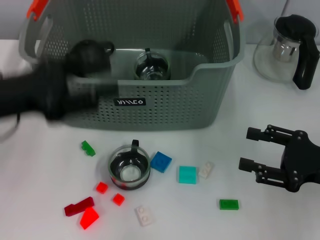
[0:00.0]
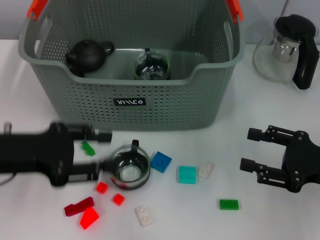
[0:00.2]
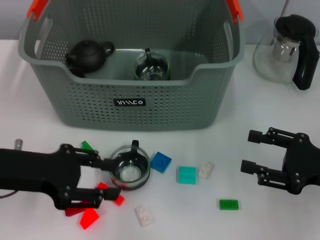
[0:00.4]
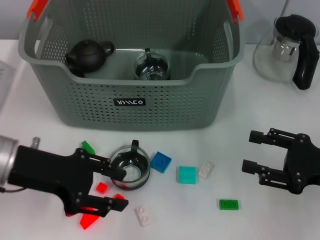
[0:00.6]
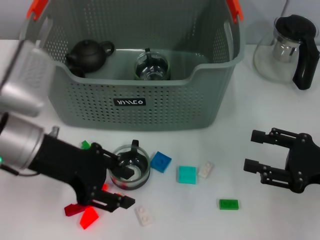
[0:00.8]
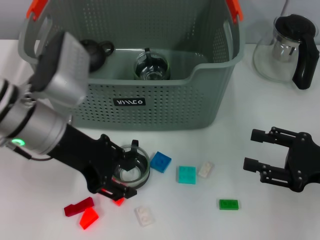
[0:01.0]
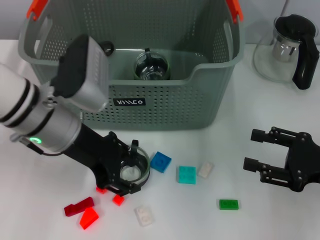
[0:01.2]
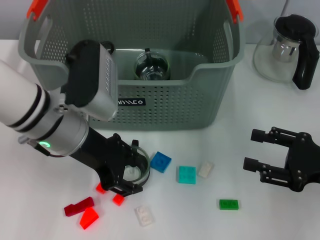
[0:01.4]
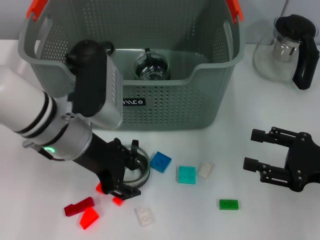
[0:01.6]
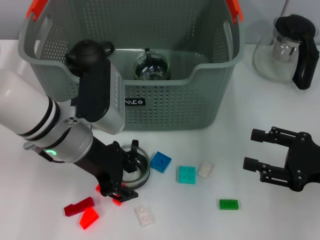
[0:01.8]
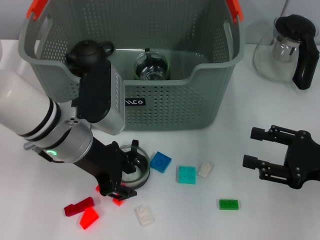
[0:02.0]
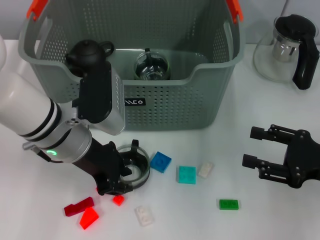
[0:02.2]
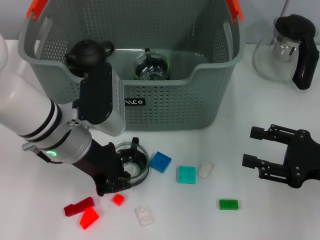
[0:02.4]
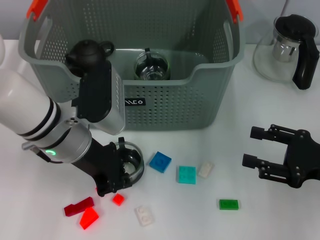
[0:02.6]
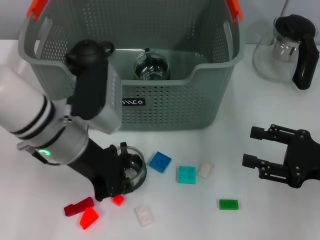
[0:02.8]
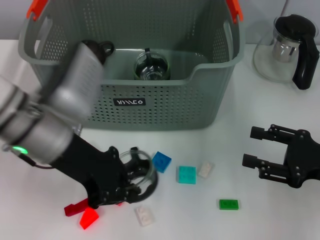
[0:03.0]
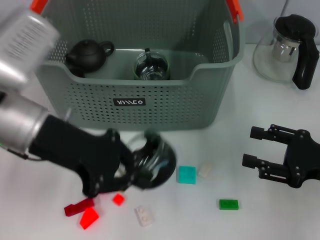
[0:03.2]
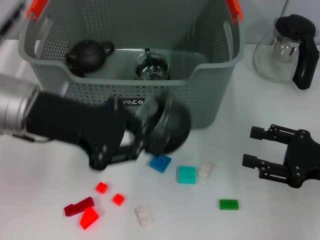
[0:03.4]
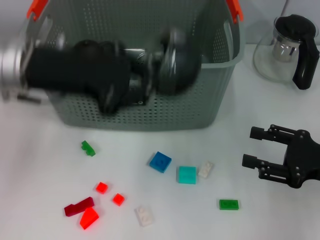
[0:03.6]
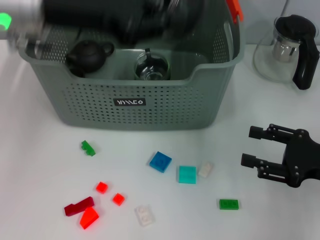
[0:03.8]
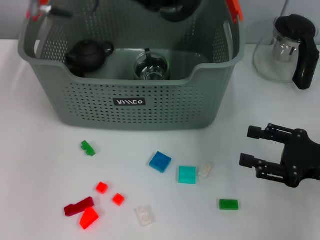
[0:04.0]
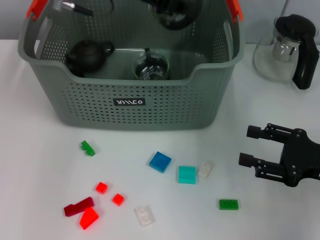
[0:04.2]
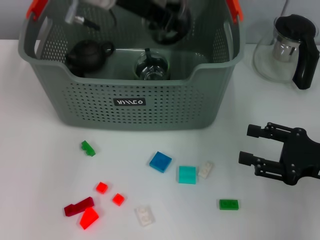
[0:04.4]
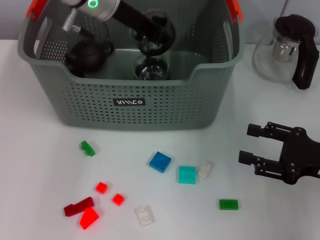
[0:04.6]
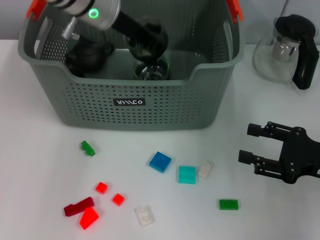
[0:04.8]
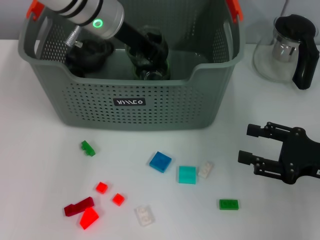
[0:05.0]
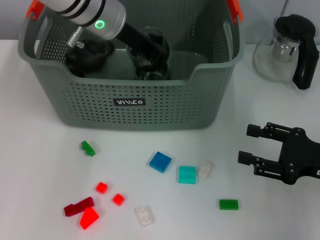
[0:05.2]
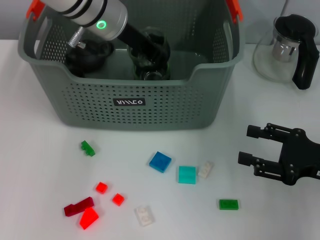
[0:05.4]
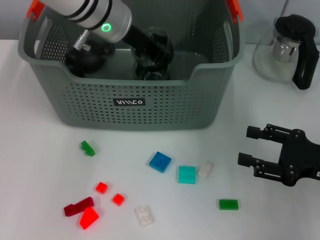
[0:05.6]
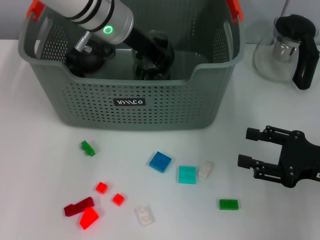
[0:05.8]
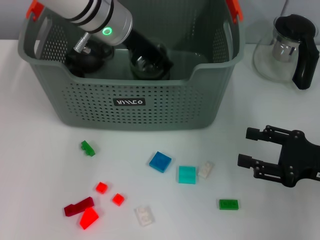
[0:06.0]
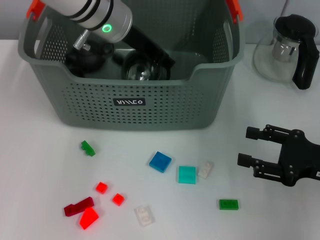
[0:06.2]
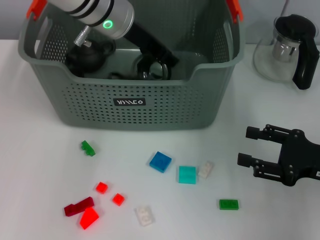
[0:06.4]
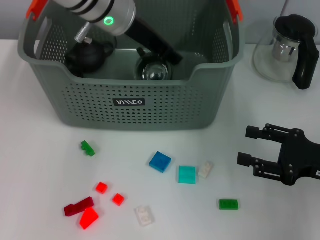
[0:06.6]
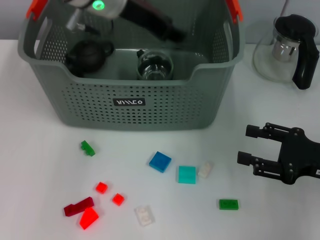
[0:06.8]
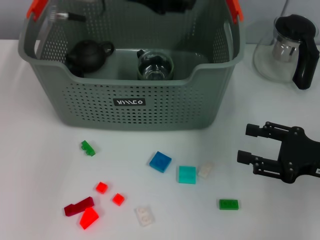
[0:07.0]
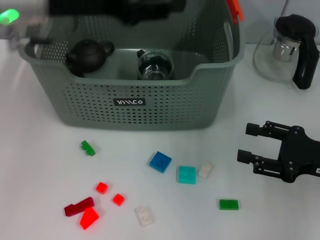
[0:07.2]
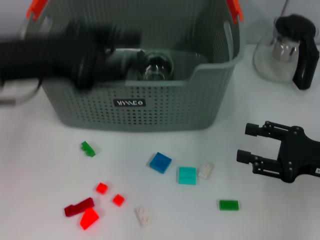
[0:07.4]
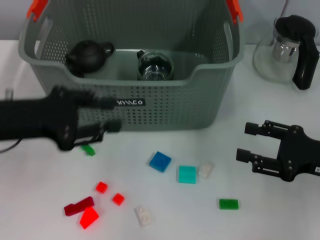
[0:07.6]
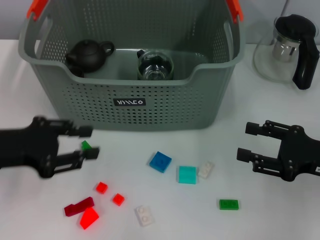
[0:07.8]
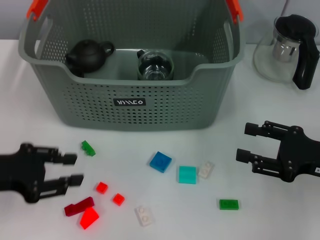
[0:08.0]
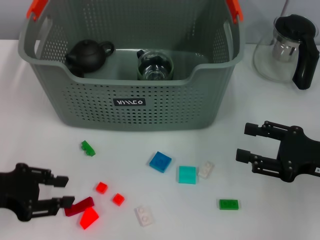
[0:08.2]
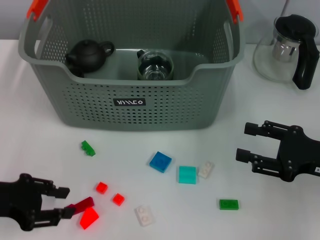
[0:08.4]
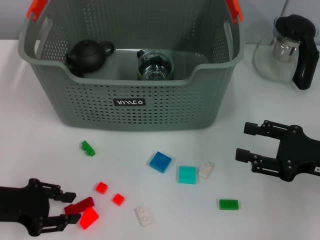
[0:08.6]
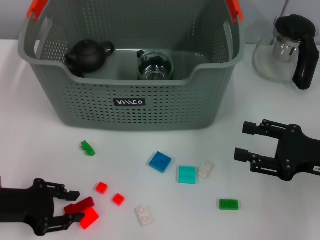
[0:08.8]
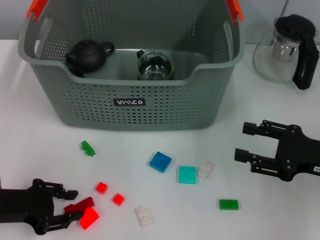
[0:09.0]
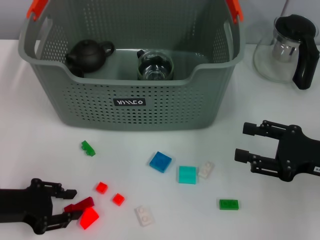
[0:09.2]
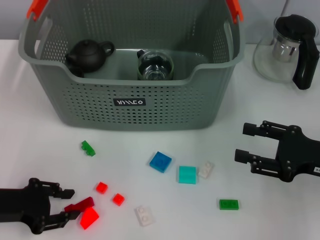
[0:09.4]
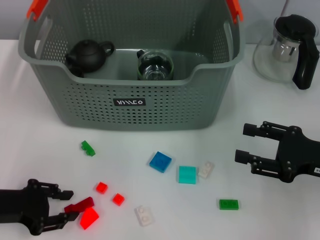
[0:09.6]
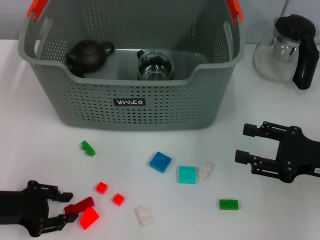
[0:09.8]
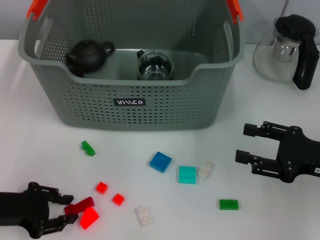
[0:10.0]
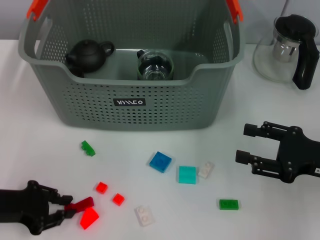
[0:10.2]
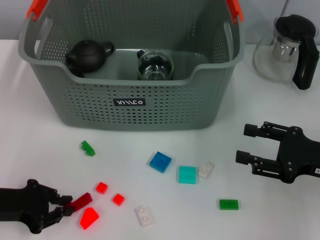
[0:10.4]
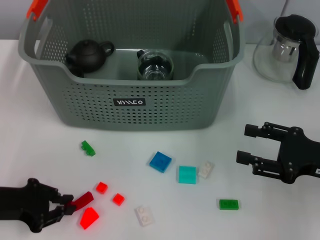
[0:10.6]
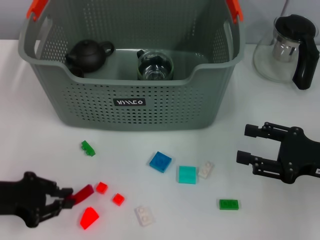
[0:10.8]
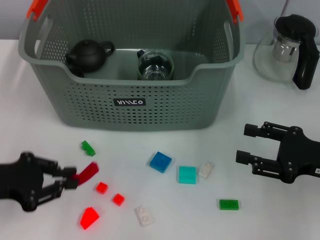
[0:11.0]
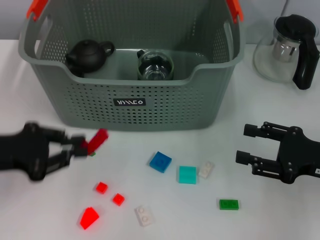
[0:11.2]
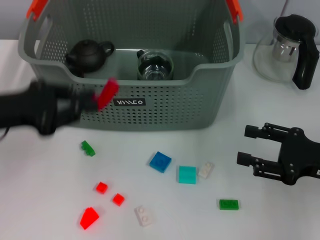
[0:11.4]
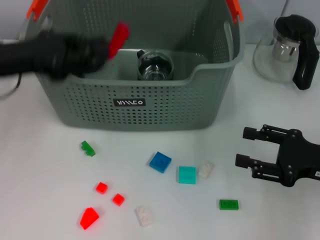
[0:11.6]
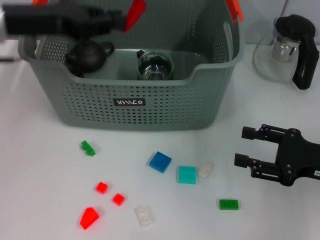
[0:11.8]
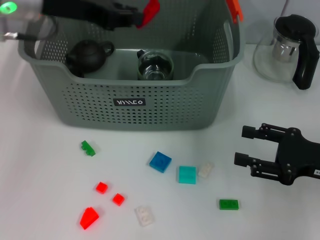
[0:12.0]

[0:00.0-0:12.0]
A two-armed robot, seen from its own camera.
Task of the whole recording: pick up the teacup on the table and place it into the storage bin, pick up the block on the table and place it into the storage bin.
Step, 0.0 to 2.4 s: Grasp the cup with left gripper.
Step, 2.8 to 6.6 s: Place the cup in the storage box with left gripper.
Step, 6.8 to 10.2 s: Grasp the red block with left gripper.
0.0 to 1.6 s: The left gripper goes some 10 cm to the right.
1.6 to 3.0 s: The left gripper closes its fingers.
3.0 to 4.4 s: The left gripper heads forward and upward, covering about 15 cm.
4.4 to 6.0 s: The left gripper ends up approximately 5 cm from where it was.
6.0 to 7.6 s: The left gripper goes some 25 cm backward and to the left, and opens its fingers.
7.6 to 9.0 s: The left gripper moves downward, about 10 cm.
9.0 to 10.4 s: Both grippers stay put.
10.4 to 12.0 s: The left gripper travels upward, forward and to the right by about 25 cm.

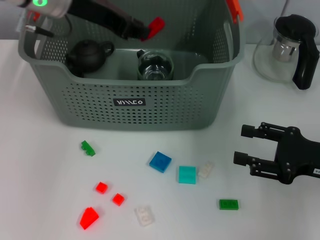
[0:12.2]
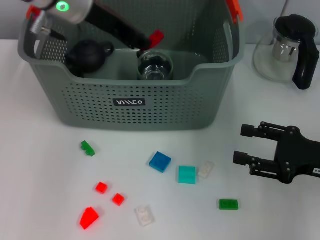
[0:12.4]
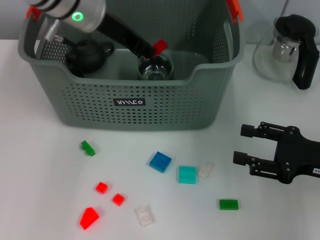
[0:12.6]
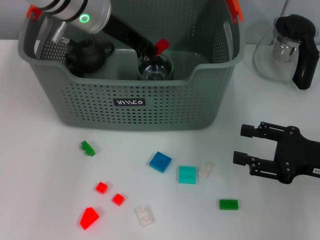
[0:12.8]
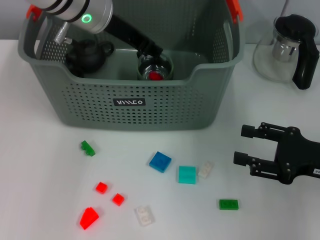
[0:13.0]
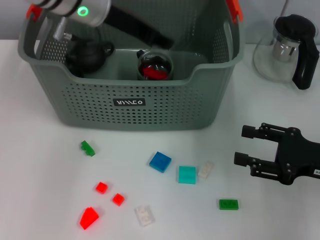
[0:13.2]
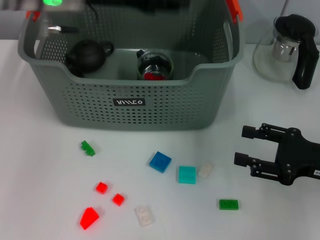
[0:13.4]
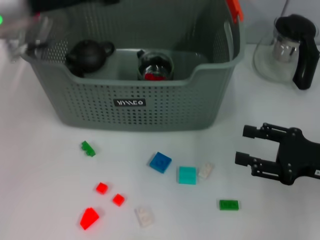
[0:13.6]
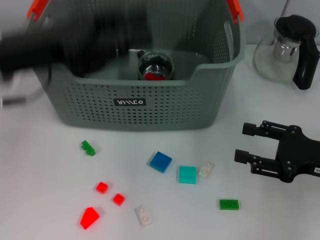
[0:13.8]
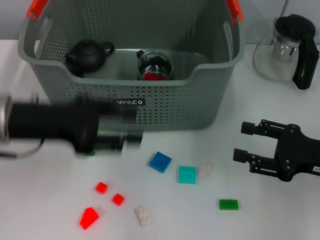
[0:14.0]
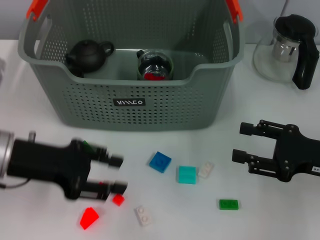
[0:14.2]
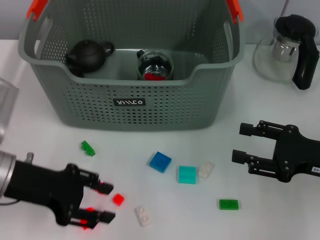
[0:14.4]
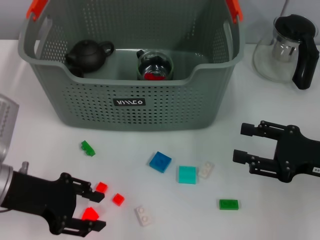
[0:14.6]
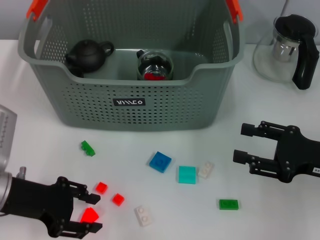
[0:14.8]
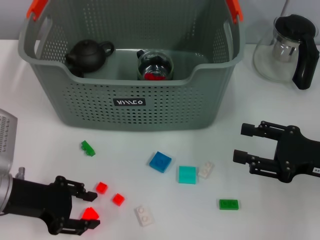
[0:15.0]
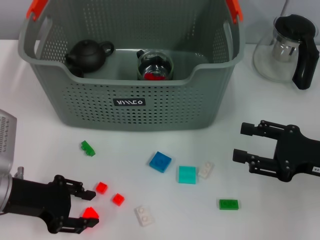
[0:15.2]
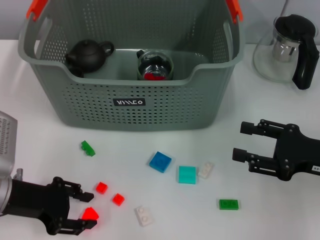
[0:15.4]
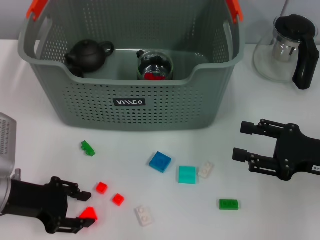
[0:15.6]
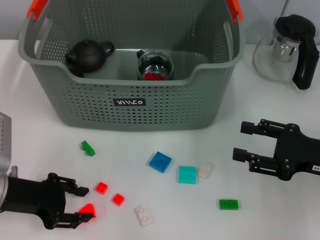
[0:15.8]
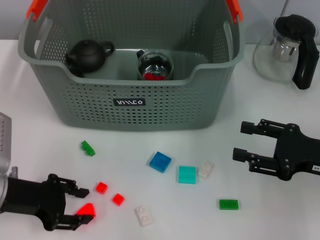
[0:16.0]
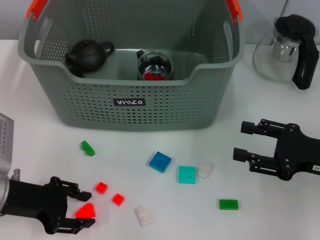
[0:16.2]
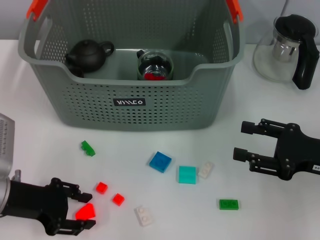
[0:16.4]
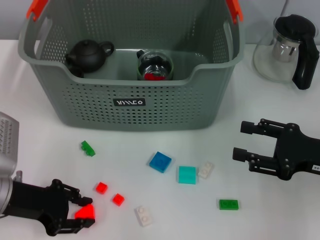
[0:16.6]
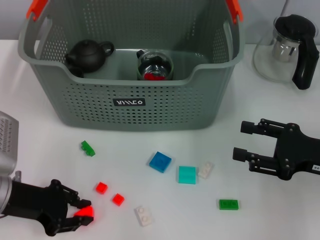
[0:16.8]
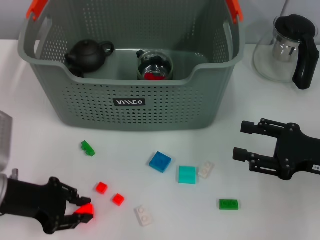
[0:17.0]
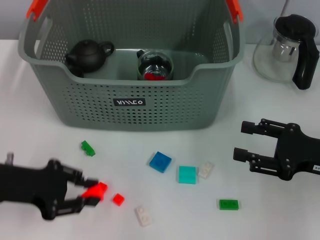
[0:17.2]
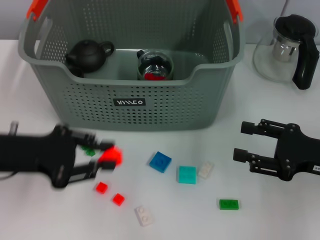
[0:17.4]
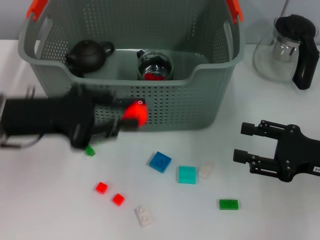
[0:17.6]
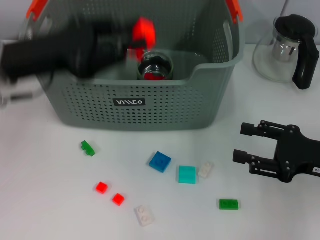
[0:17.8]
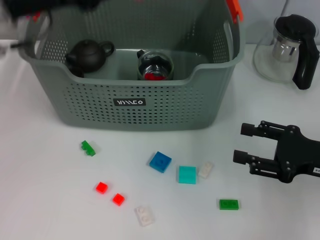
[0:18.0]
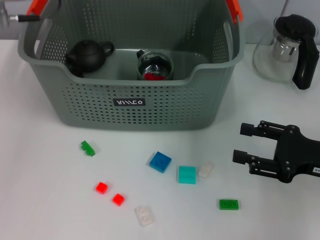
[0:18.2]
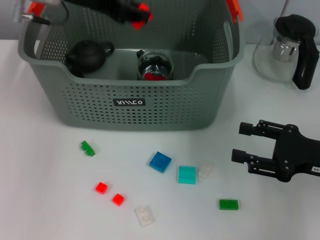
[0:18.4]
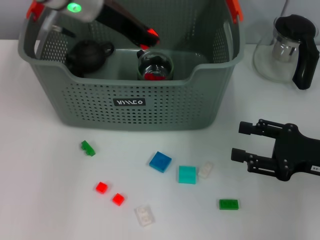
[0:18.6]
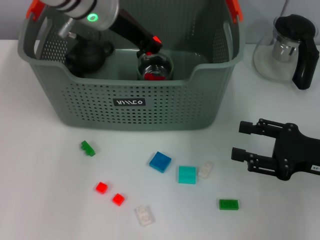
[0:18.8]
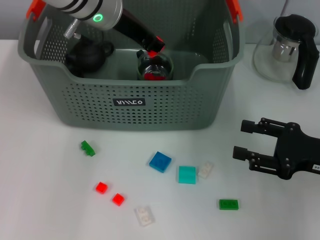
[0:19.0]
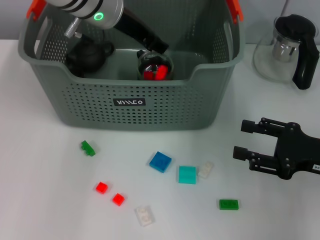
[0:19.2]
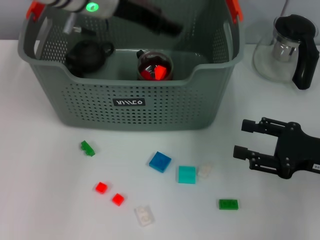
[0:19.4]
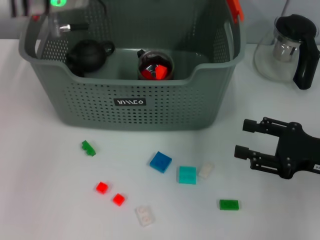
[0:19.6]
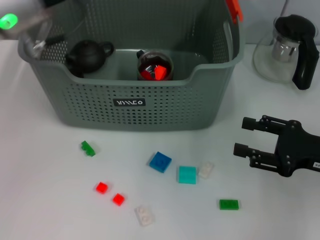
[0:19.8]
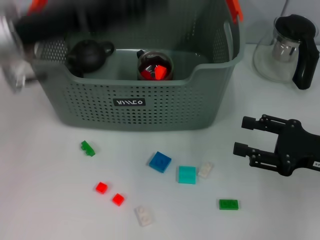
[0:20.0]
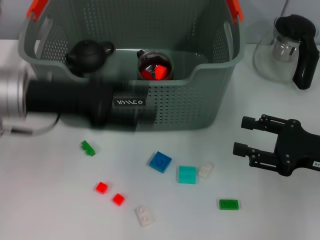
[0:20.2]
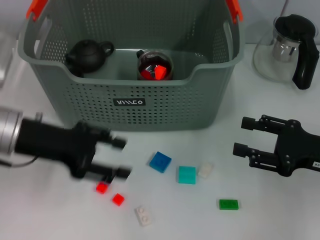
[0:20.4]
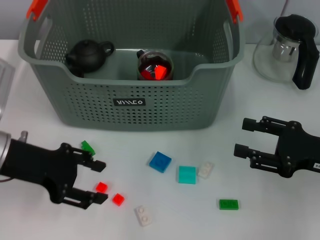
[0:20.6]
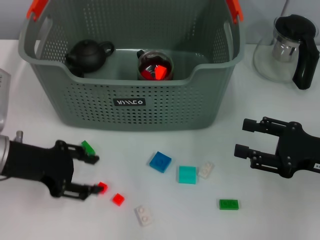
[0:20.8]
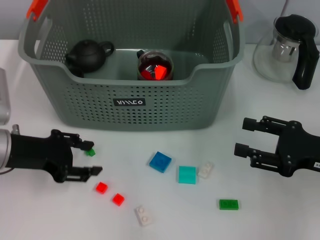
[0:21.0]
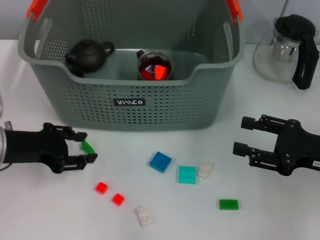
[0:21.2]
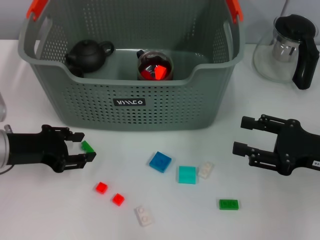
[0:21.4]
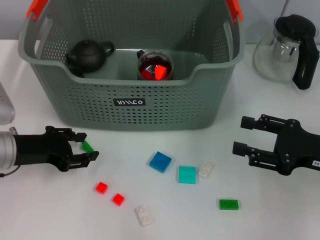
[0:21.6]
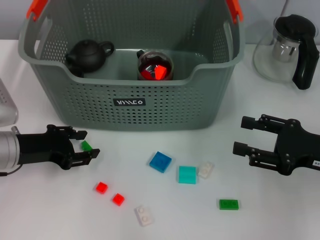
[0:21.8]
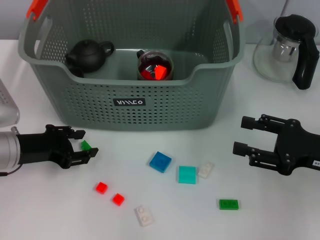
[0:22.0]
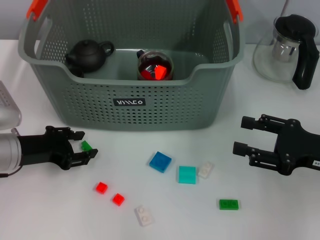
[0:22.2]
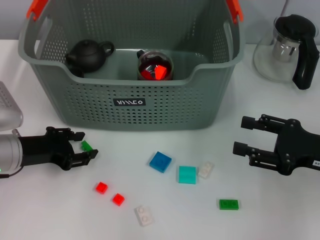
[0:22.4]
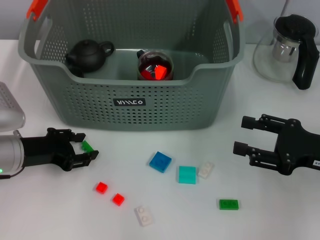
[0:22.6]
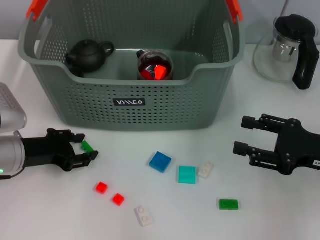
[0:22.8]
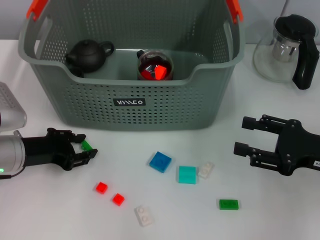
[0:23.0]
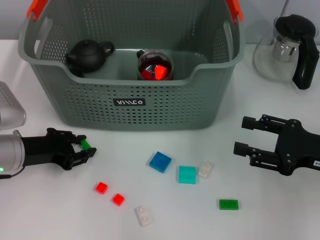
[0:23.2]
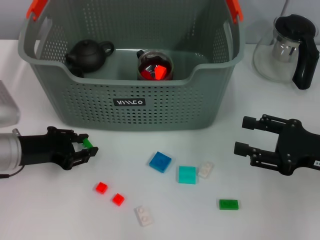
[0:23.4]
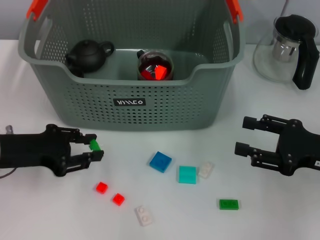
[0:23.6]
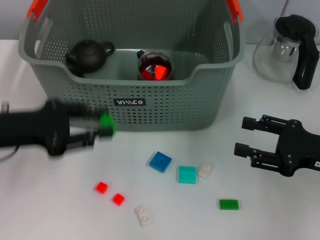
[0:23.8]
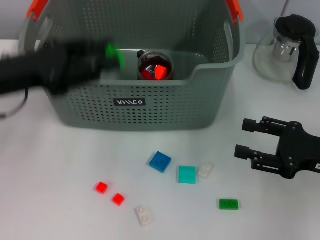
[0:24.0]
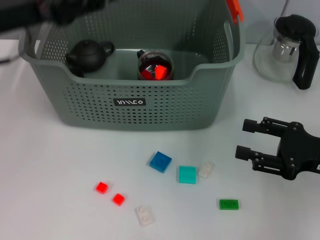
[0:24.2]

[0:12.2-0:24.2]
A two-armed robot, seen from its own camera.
Task of the whole recording: pick up the teacup on the table and place it into the storage bin, pick up the block on the table and place it into the storage bin.
Step, 19.8 to 23.0 s: Grasp the green block with left gripper.
12.2 to 13.8 s: The left gripper goes roughly 10 cm backward and to the left, and opens its fingers.
13.8 to 15.2 s: The left gripper is displaced downward and backward by approximately 15 cm.
15.2 to 16.6 s: The two grippers keep their place.
16.6 to 18.2 s: The left gripper travels upward and forward by some 25 cm.
18.2 to 19.8 s: The left gripper goes to the right and returns, about 10 cm each way, and opens its fingers.
19.8 to 21.2 s: The left gripper shifts approximately 15 cm downward, to the left and backward.
21.2 to 22.6 s: The grippers make only small movements.
22.6 to 24.2 s: The left gripper shifts some 15 cm upward.
